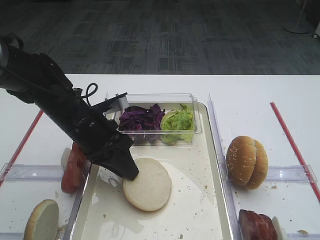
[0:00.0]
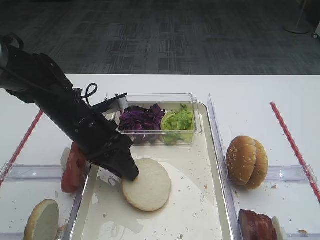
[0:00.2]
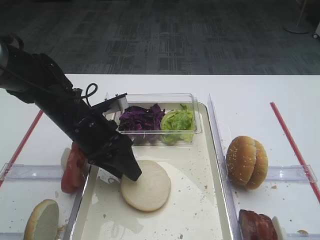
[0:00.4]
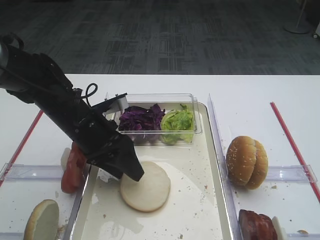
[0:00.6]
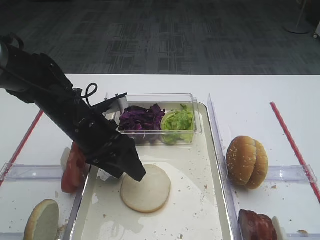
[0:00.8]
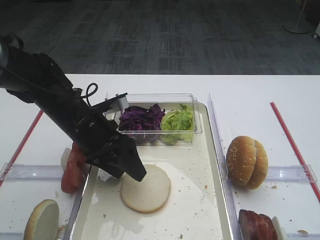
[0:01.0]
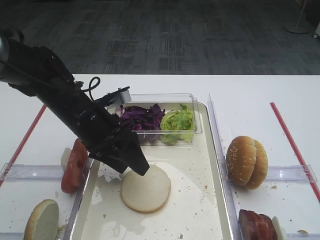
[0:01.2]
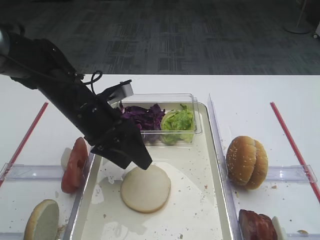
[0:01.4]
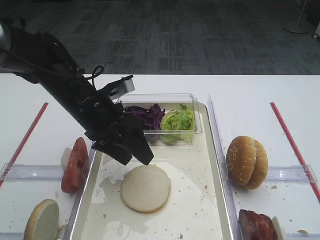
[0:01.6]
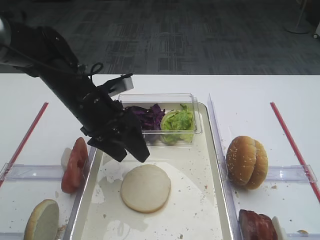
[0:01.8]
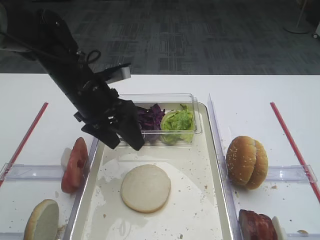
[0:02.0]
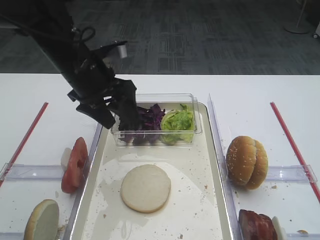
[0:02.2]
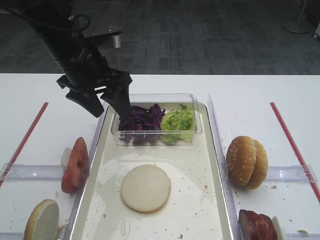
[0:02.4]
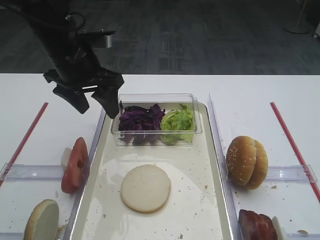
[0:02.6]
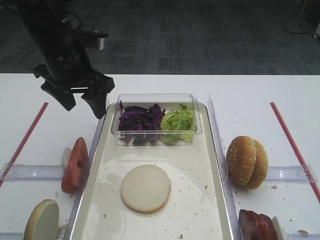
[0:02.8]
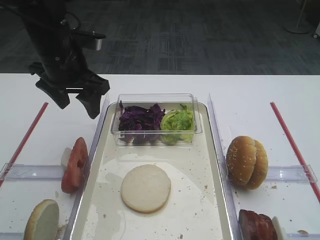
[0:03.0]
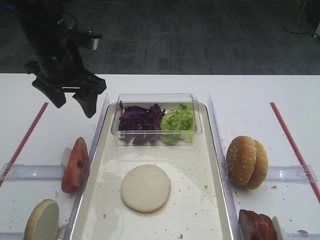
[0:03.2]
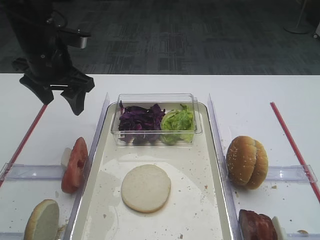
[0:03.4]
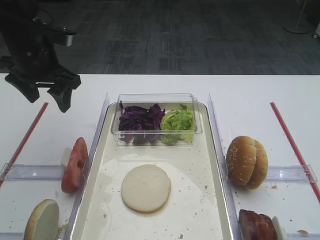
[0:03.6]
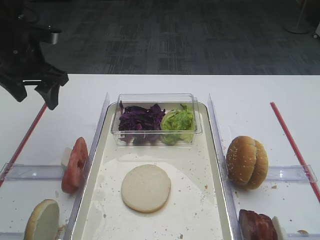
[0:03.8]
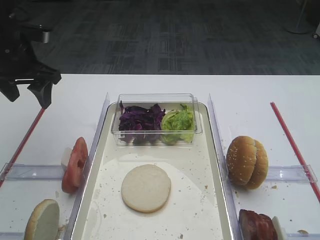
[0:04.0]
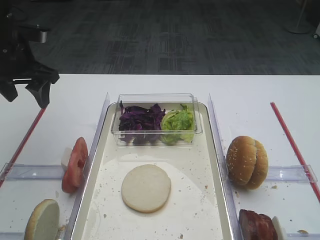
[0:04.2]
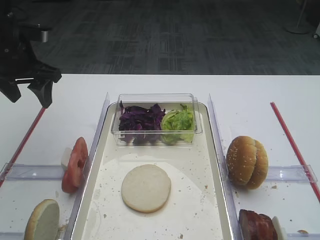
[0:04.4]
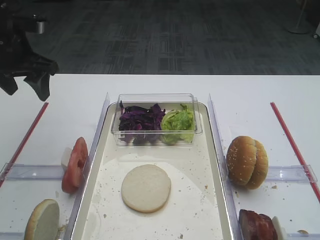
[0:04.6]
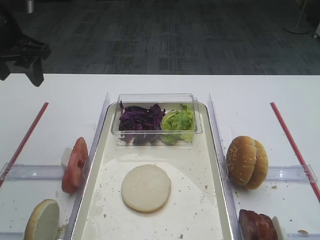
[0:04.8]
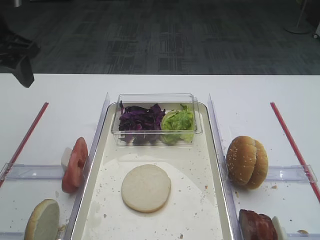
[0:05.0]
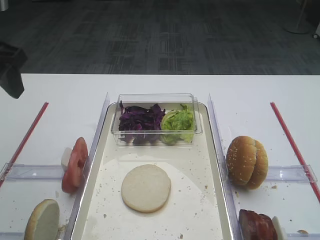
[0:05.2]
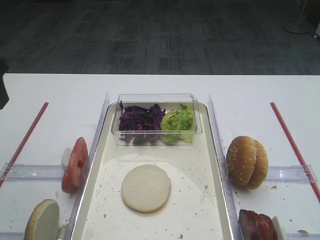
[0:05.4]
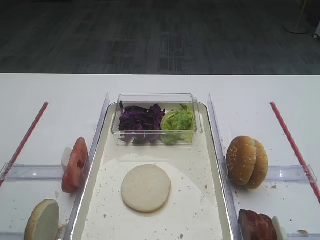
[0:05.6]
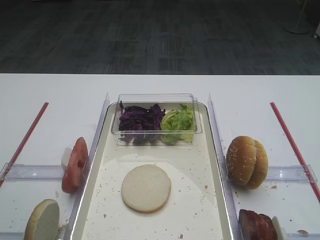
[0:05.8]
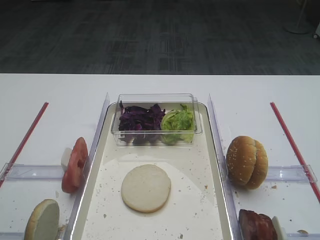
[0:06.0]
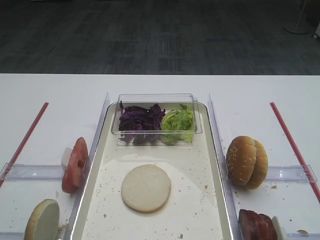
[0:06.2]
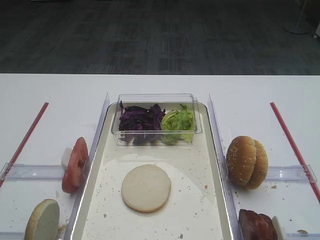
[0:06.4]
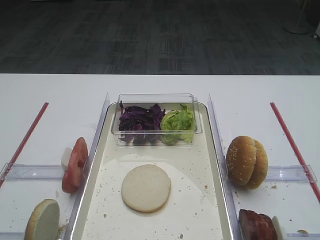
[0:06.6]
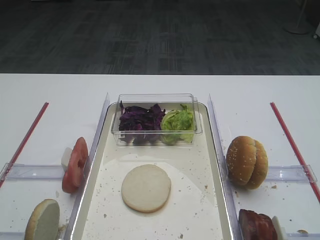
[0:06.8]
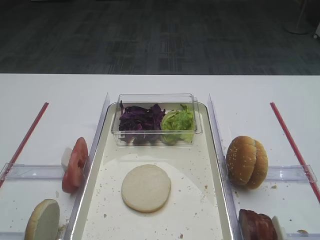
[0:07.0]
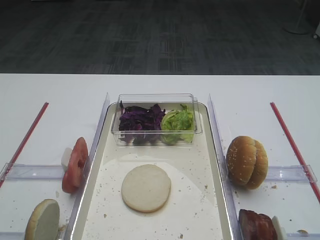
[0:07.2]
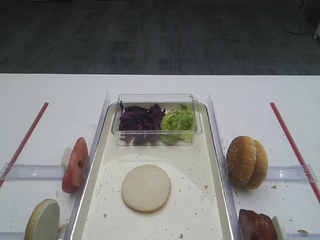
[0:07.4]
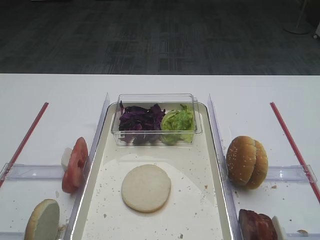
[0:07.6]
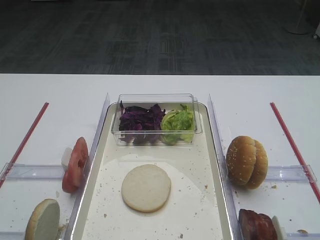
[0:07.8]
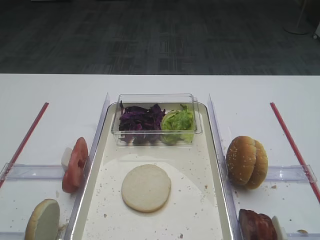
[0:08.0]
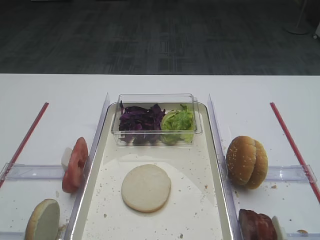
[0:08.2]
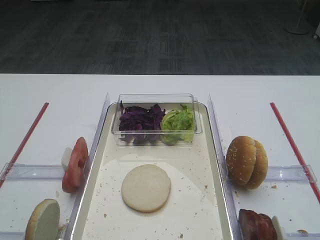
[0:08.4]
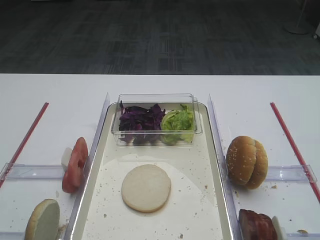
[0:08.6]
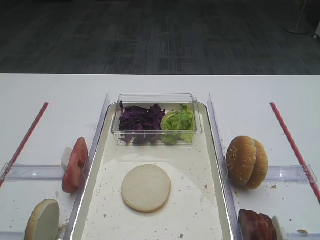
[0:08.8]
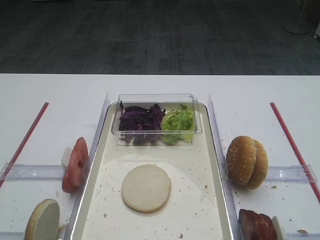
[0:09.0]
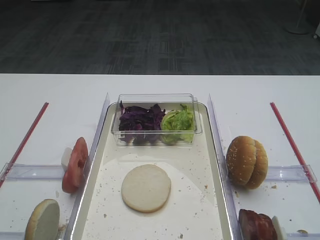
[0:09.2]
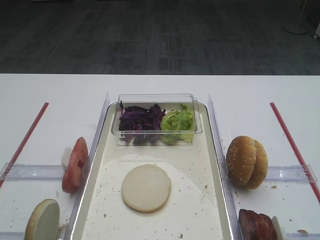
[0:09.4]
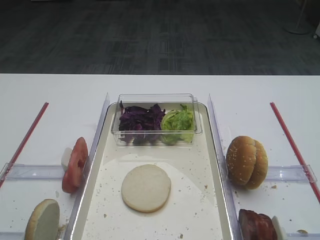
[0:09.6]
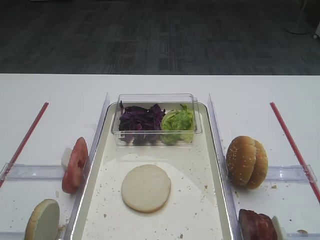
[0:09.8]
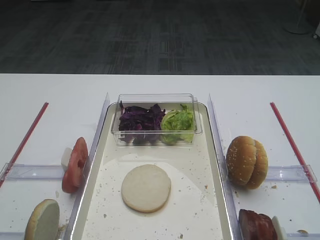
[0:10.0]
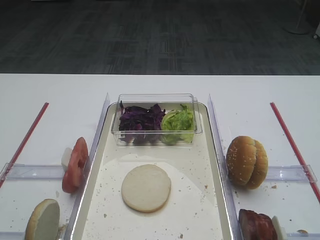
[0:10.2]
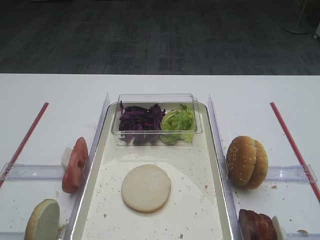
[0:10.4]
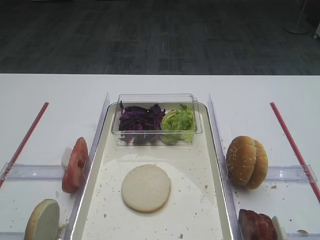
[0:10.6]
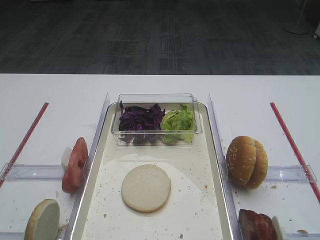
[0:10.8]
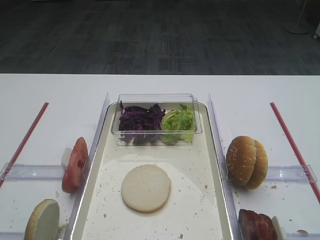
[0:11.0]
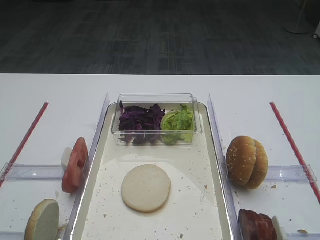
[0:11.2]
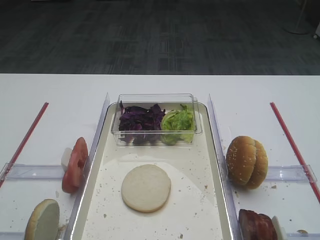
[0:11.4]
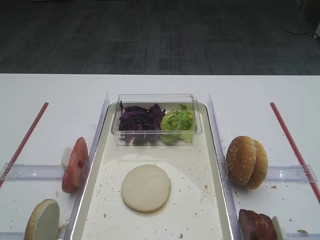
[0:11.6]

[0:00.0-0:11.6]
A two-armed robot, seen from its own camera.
0.0 to 1.4 s: The left gripper opens up.
1.4 to 2.8 s: The left gripper shifts roughly 10 cm upward.
2.8 to 4.4 s: The left gripper heads to the left, covering approximately 10 cm.
4.4 to 5.8 s: The left gripper is displaced backward and upward by some 25 cm.
7.2 to 8.8 s: Both grippers stay about where they are.
8.8 to 10.2 s: Both grippers stay about where they are.
10.2 to 11.6 s: The two grippers keep their place.

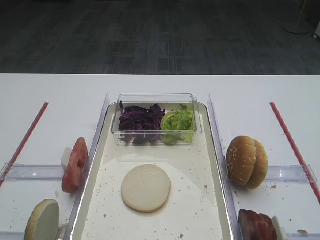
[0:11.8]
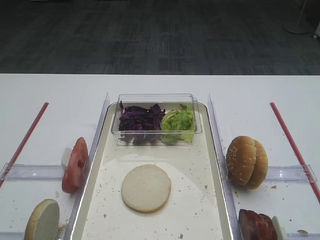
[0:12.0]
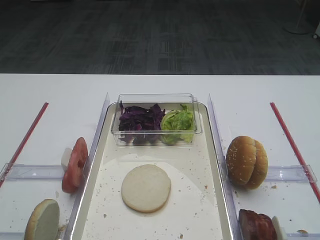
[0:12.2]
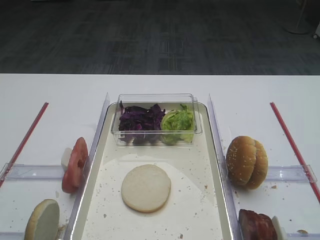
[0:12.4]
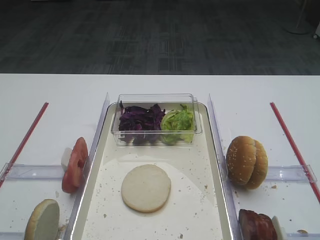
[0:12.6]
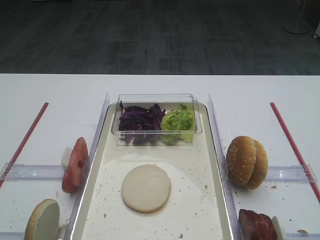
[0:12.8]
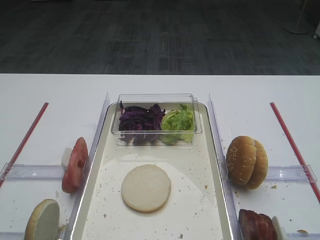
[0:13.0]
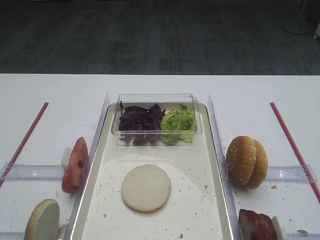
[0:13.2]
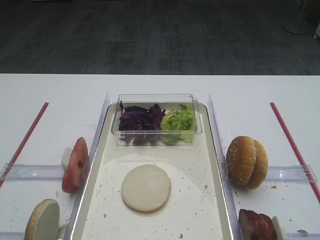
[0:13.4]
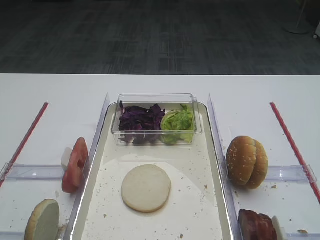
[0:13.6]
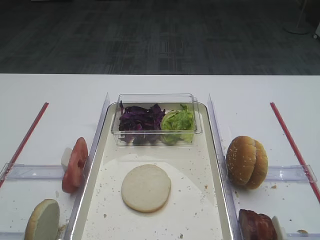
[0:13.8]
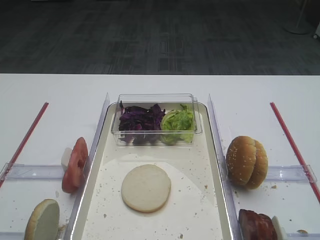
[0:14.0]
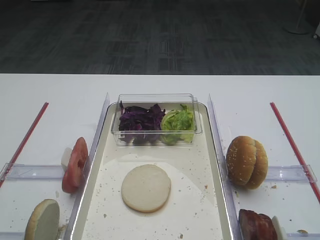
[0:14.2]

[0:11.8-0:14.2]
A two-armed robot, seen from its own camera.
11.8 to 14.2 s: Both grippers stay about where they are.

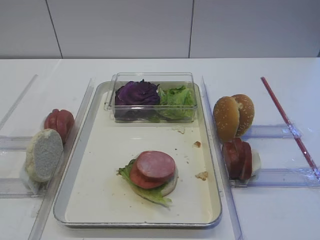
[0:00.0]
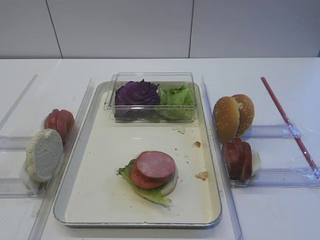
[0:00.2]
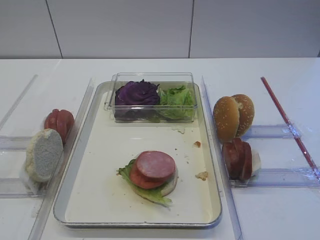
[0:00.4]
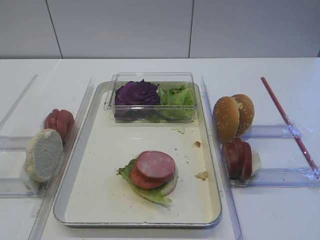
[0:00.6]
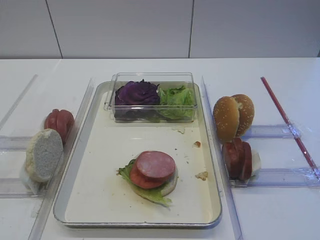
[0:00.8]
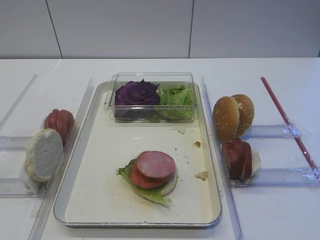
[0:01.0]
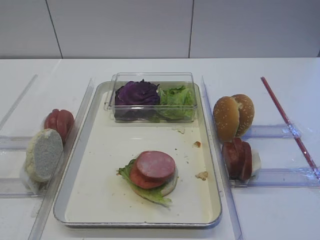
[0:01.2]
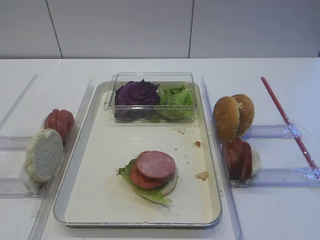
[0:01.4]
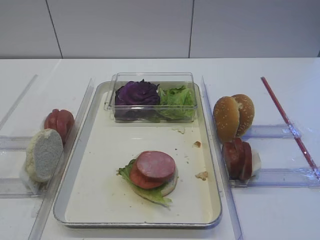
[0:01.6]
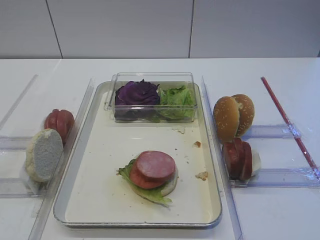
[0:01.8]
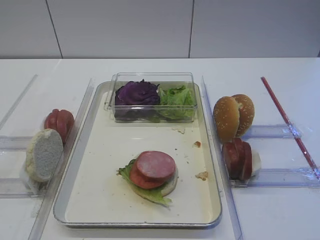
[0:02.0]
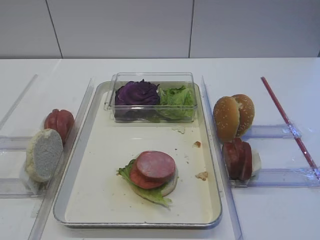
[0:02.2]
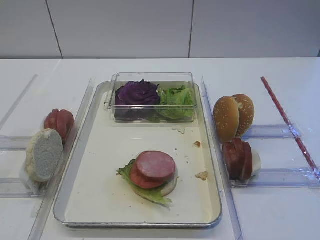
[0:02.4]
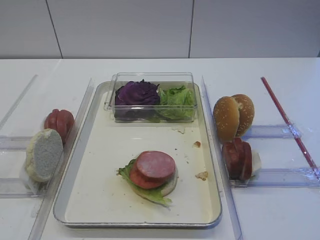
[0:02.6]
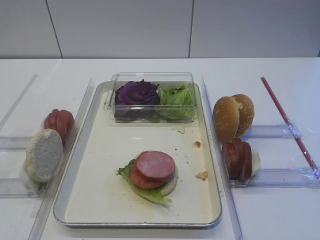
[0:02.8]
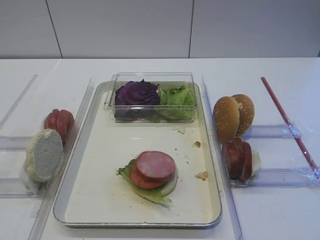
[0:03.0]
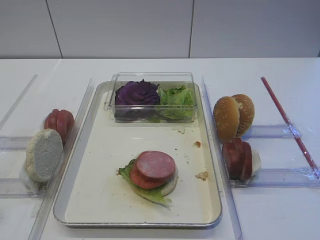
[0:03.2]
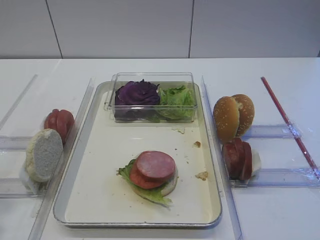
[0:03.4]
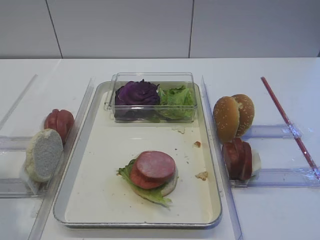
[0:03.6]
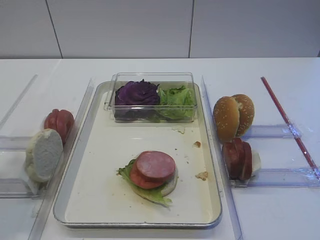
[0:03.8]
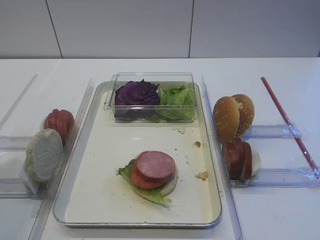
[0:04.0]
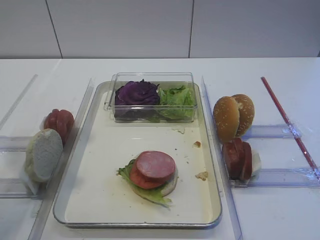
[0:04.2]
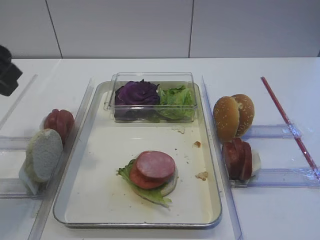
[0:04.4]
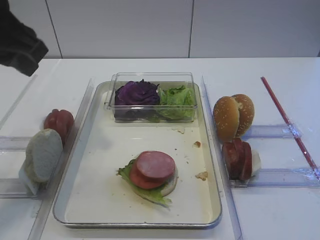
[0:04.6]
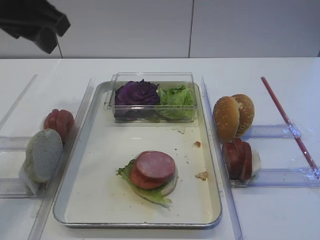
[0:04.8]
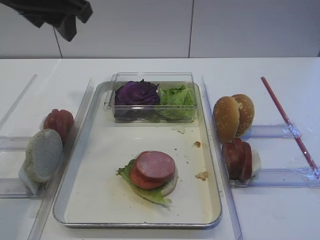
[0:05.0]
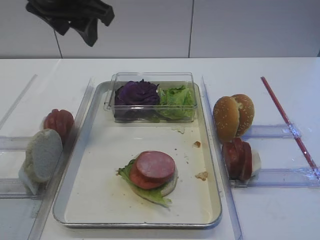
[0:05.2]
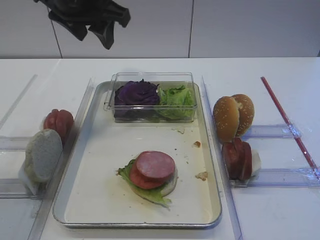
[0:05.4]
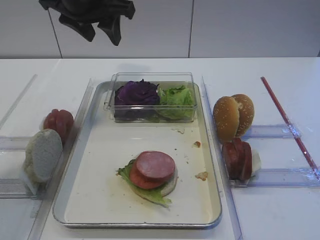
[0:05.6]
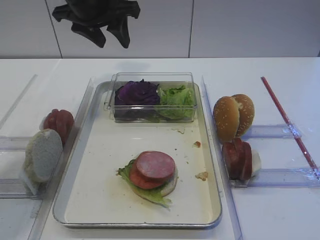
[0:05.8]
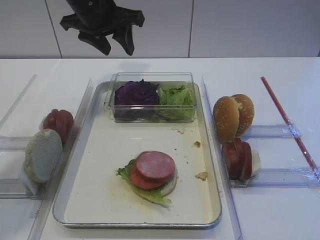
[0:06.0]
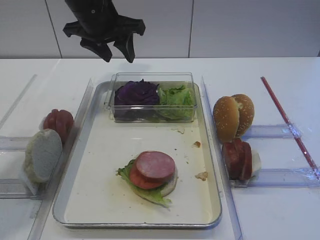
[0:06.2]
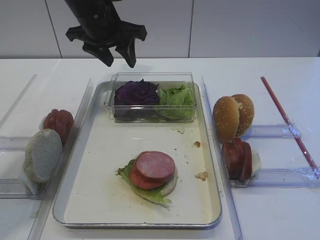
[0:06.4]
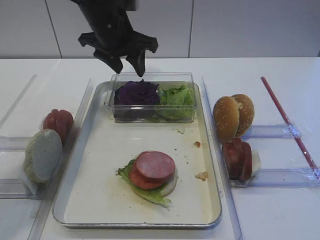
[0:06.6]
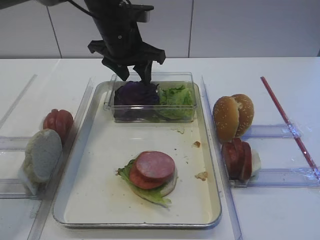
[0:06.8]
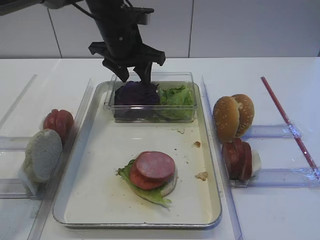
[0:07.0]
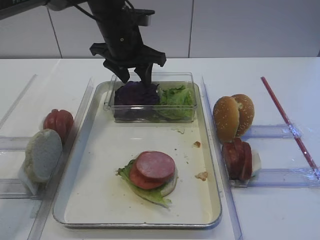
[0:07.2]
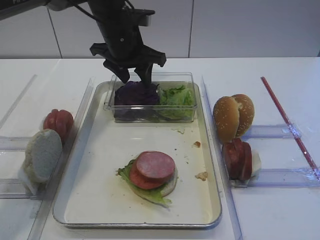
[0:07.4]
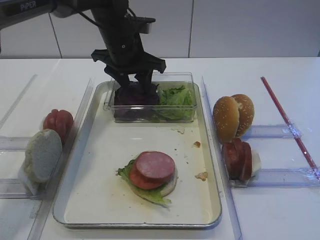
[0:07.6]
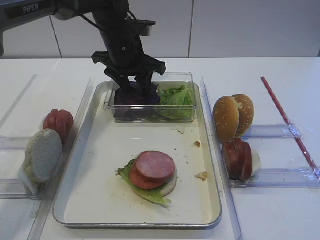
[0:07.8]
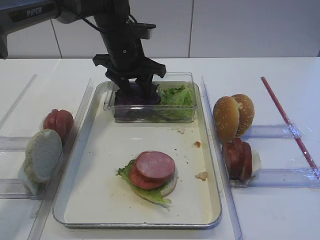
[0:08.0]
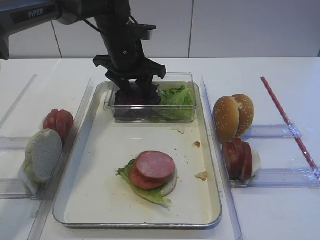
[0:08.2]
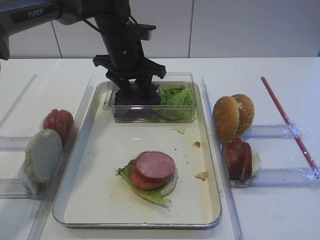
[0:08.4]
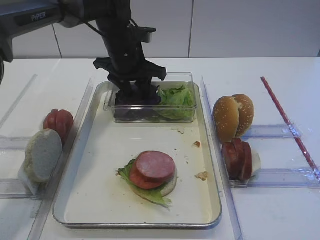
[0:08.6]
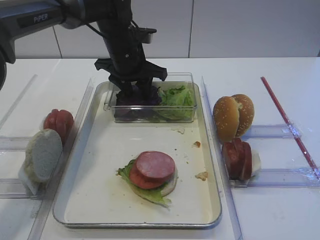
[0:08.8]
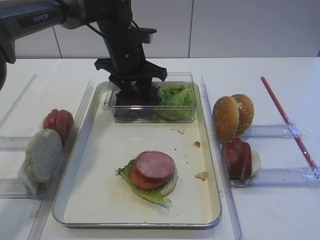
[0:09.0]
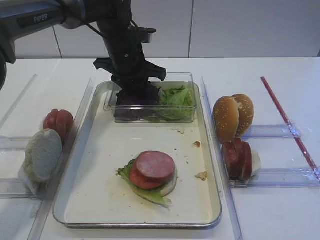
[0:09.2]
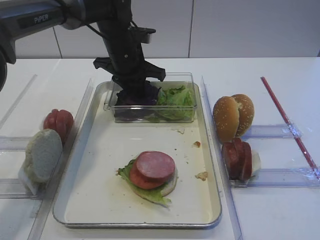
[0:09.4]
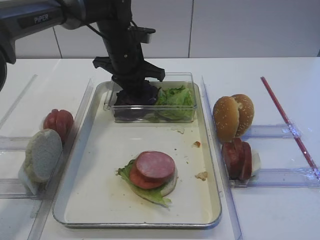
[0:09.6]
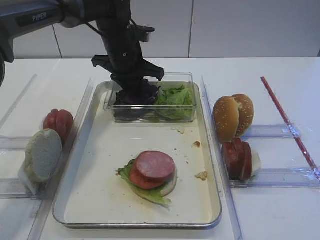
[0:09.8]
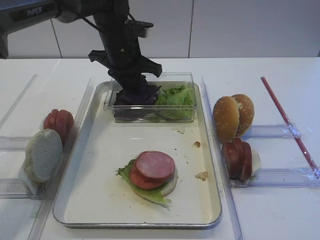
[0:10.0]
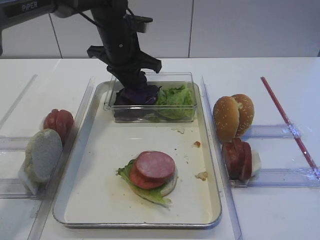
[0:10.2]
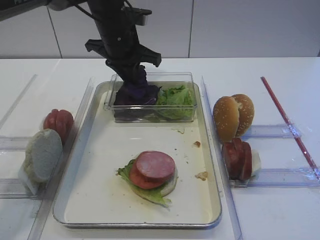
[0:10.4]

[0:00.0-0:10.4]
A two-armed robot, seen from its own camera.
3.0 to 4.4 s: The left gripper heads forward and to the right, covering approximately 20 cm.
4.4 to 6.0 s: The left gripper goes roughly 25 cm forward and to the right.
6.0 to 7.4 s: The left gripper goes approximately 5 cm downward.
7.4 to 9.0 s: The grippers make only small movements.
9.0 to 10.4 s: The left gripper closes its fingers.
